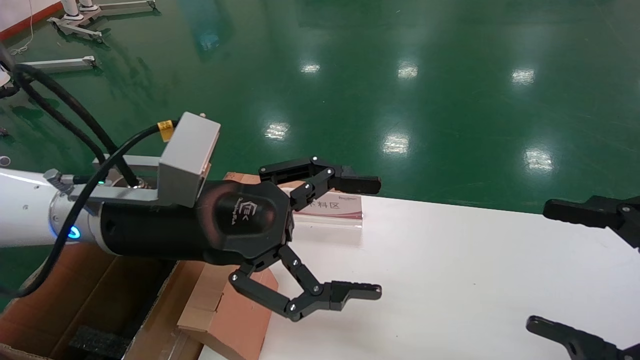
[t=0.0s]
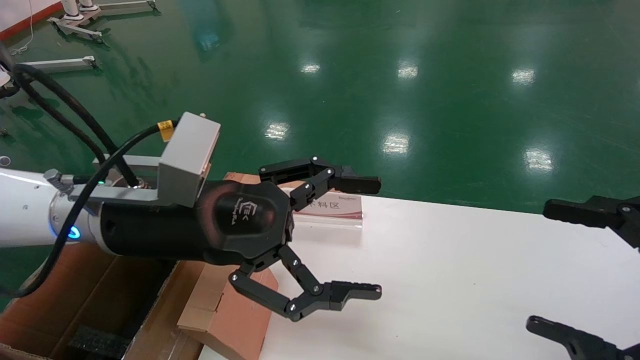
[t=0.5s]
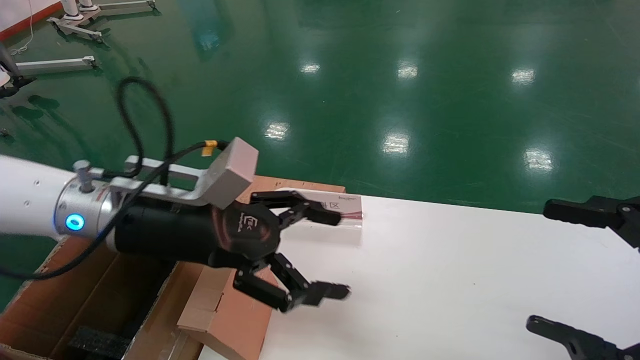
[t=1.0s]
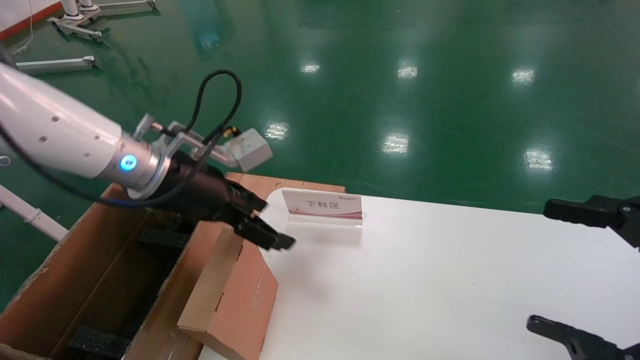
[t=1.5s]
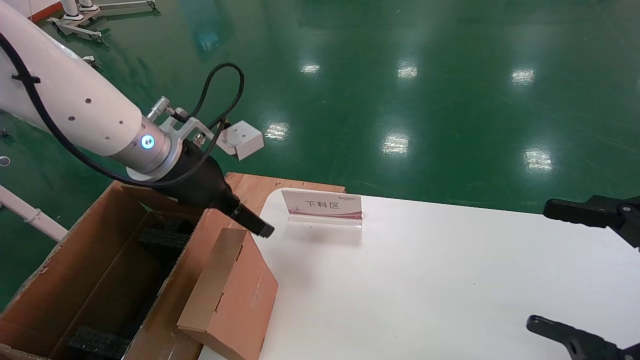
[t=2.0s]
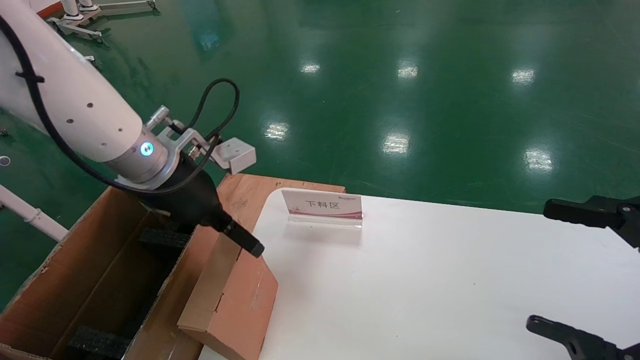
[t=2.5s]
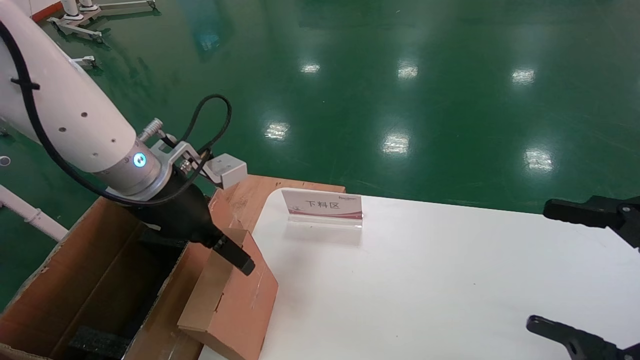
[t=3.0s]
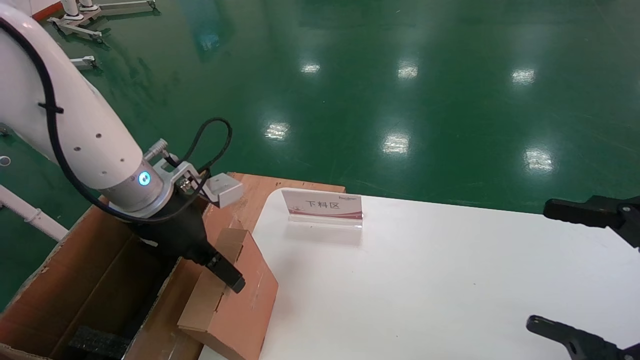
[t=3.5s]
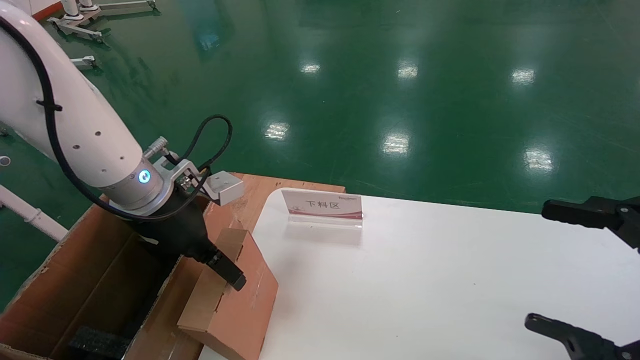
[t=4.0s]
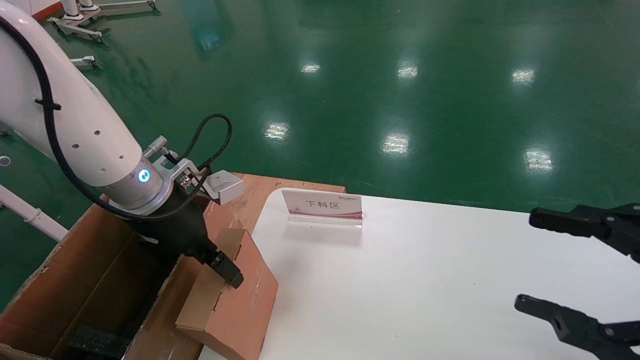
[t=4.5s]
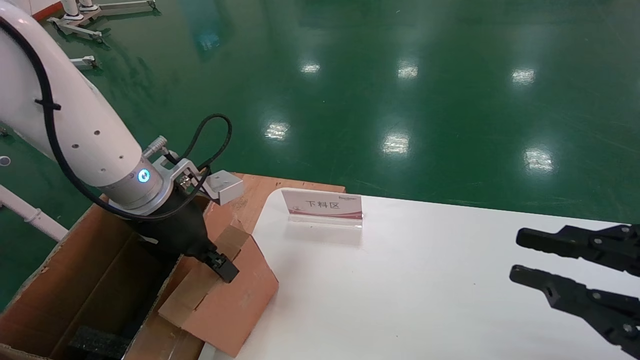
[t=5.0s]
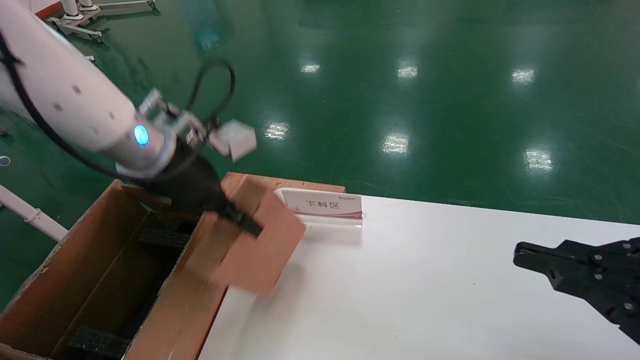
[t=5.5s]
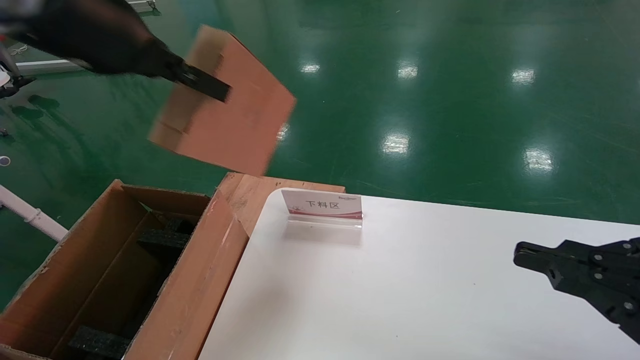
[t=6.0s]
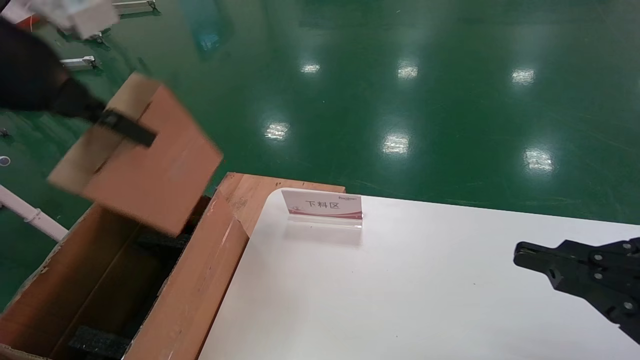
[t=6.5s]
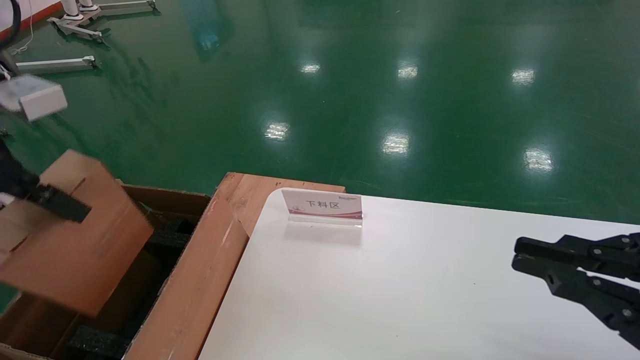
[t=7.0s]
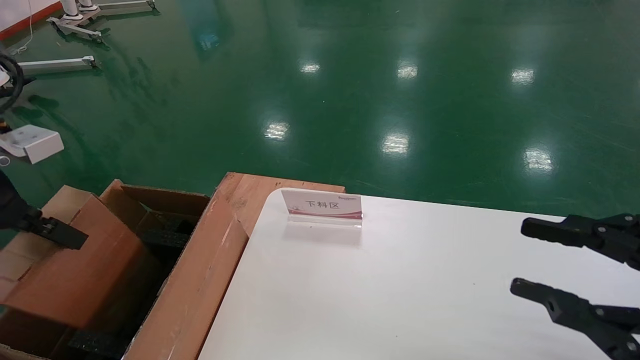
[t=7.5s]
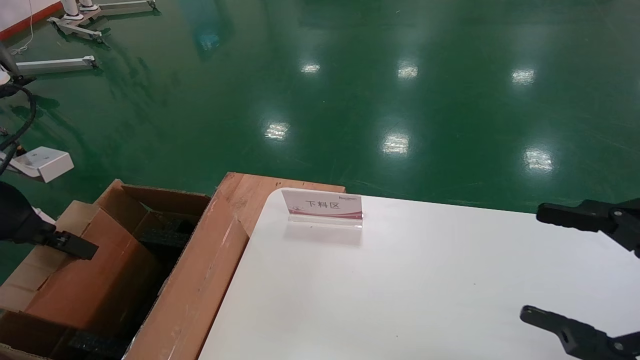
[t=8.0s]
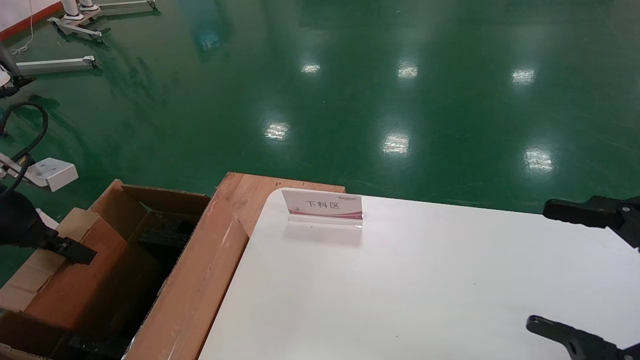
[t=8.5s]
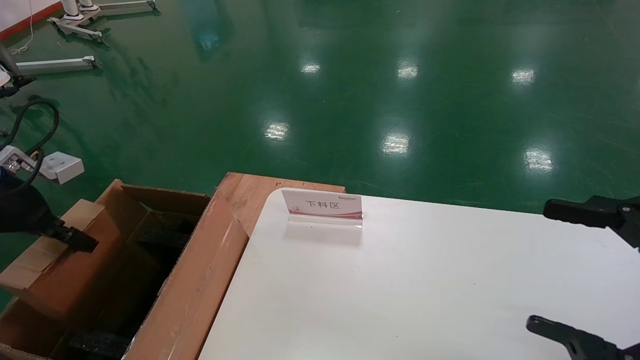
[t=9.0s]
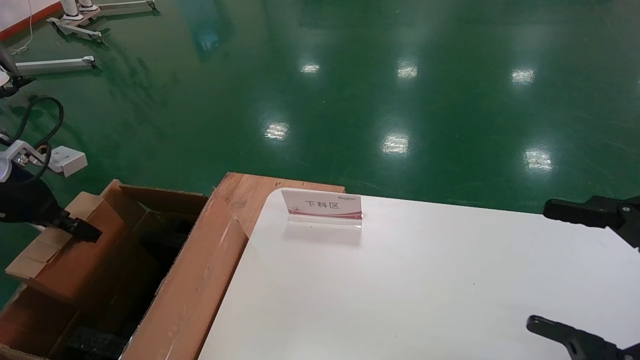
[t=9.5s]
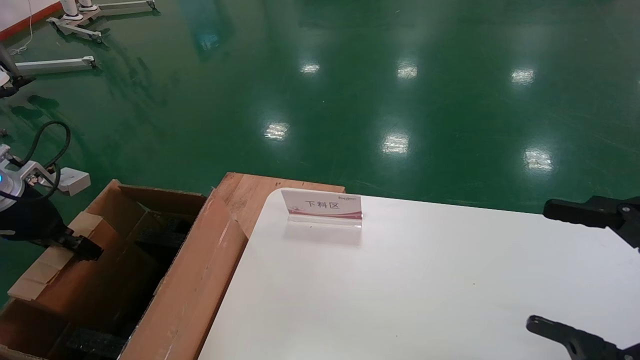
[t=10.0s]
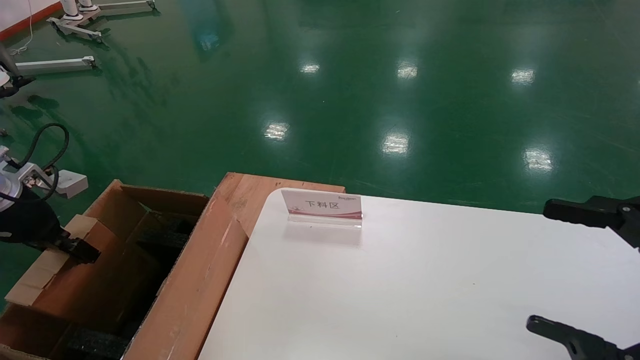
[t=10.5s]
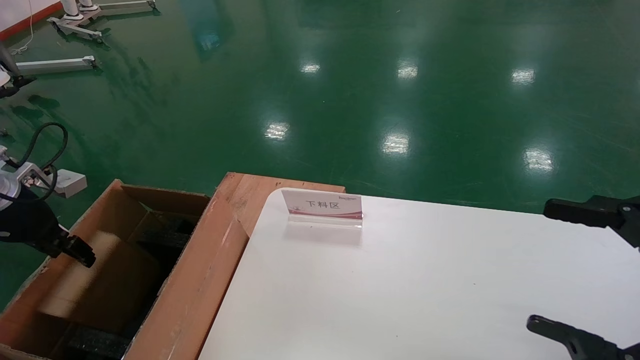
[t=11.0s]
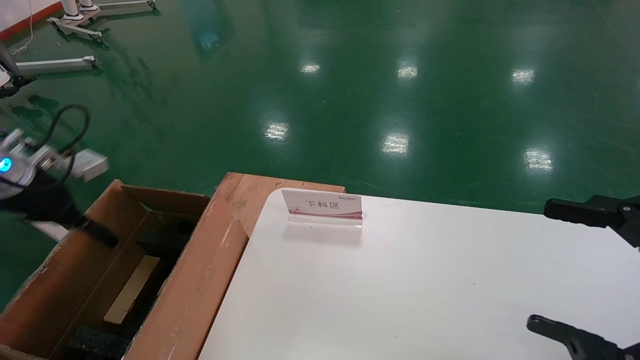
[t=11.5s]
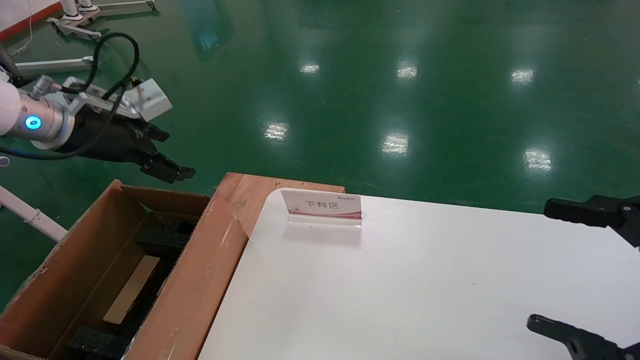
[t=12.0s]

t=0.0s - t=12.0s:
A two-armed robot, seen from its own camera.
Task of the whole recording: pick up the small cardboard box and load it into the large cardboard box.
Step, t=1.0s - t=4.0s: Pick up the mouse and power cord box.
Step, t=4.5s - t=11.0s: Place the mouse and power cord box into the case.
t=0.0s - t=2.0s: The left gripper heads forward, covering about 10 cm.
t=2.0s - t=4.0s: The grippers make only small movements.
t=4.0s - t=6.0s: The right gripper closes. The left gripper travels upward by some 20 cm, and closes its fingers.
t=6.0s - t=8.0s: The right gripper opens its fingers, while the left gripper travels to the left and downward by roughly 25 cm.
t=8.0s - t=10.0s: The left gripper goes approximately 10 cm forward, to the left and downward.
t=10.0s - t=12.0s: The left gripper shifts about 15 cm to the right and upward, and opens.

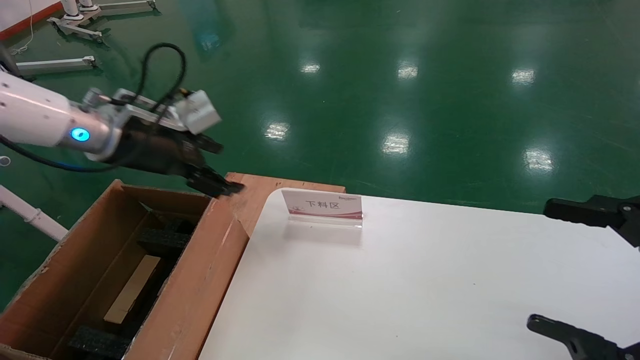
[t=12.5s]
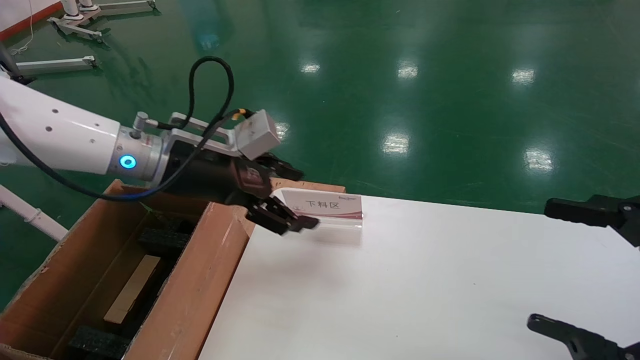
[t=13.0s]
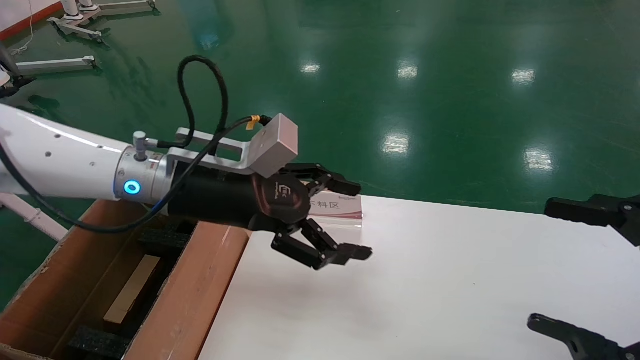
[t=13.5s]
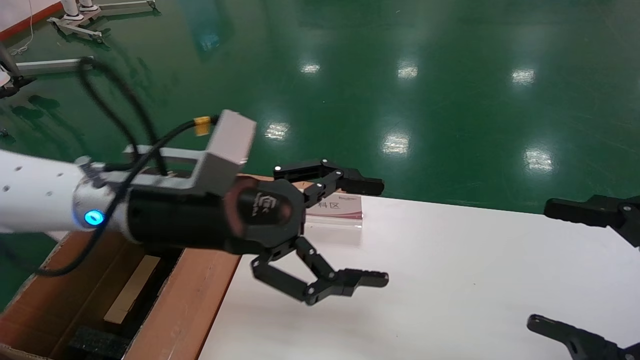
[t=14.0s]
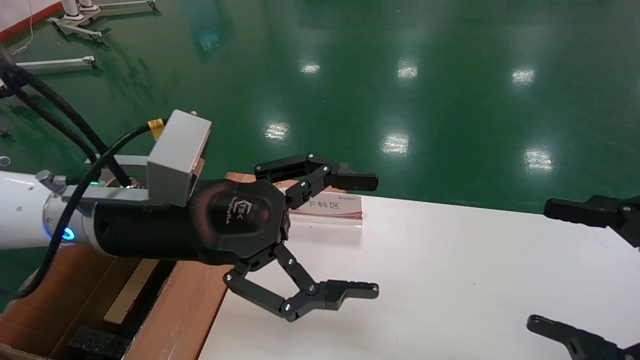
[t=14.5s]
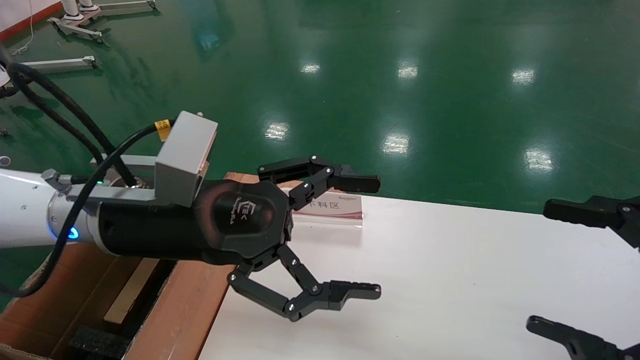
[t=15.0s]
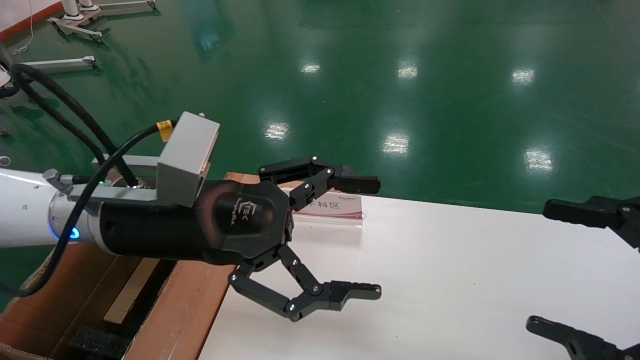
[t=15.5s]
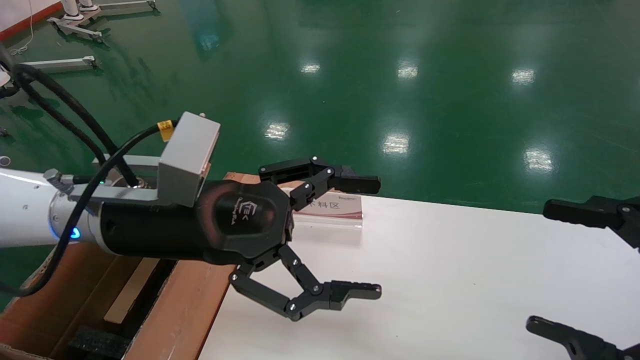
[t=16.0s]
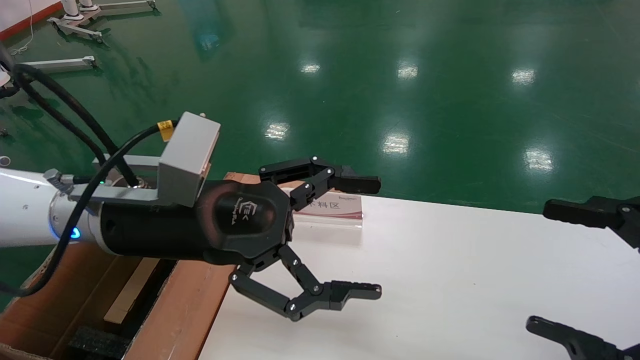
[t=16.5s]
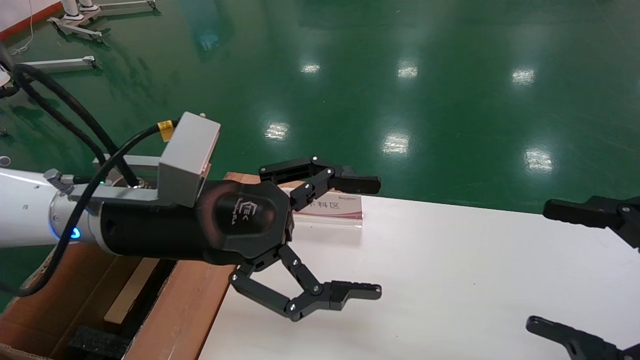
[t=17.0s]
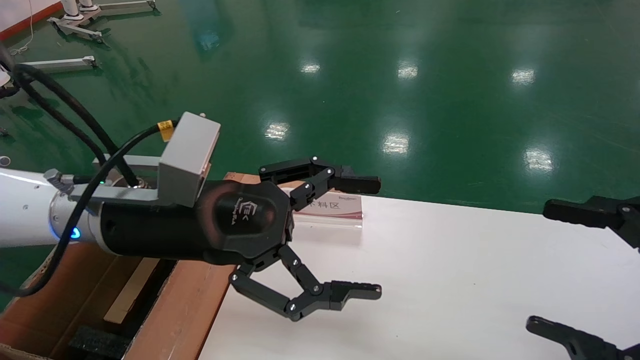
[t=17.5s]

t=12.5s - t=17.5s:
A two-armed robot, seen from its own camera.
Task of the whole recording: pick up the small cardboard box and load it into the large cardboard box.
t=12.5s - t=15.0s: The left gripper travels to the right and backward by roughly 15 cm.
t=15.0s - t=17.5s: Neither gripper changes place.
